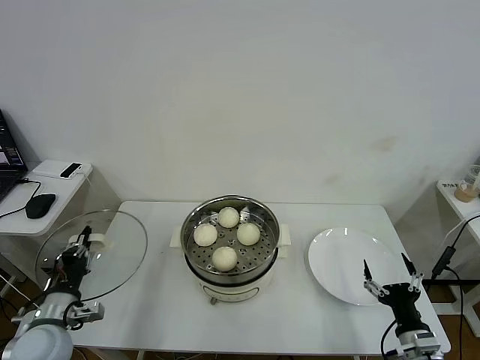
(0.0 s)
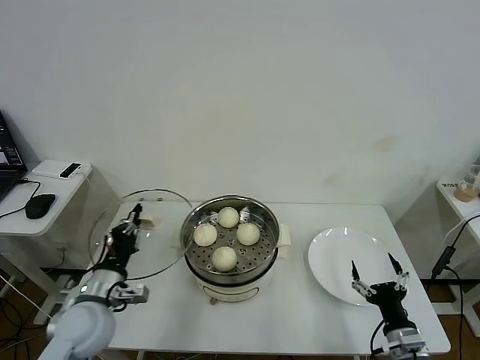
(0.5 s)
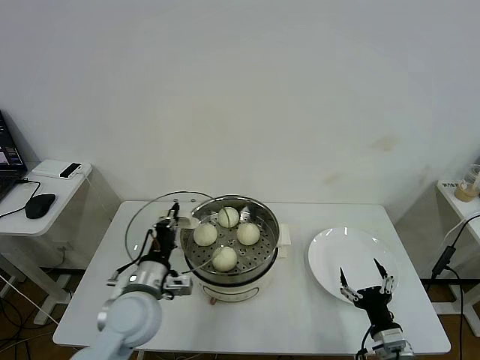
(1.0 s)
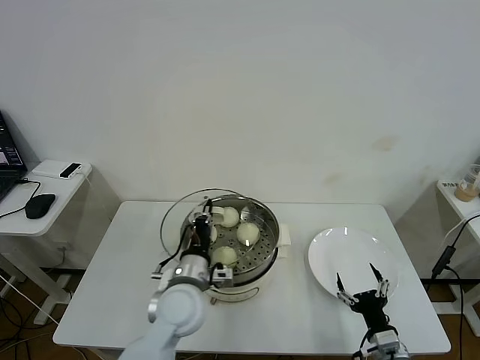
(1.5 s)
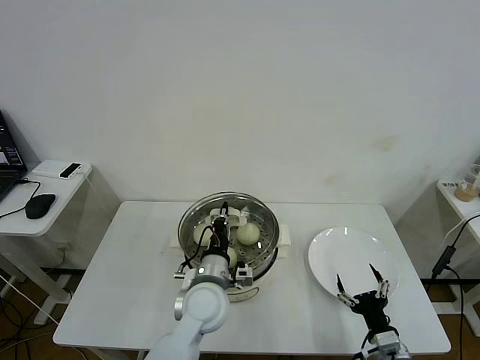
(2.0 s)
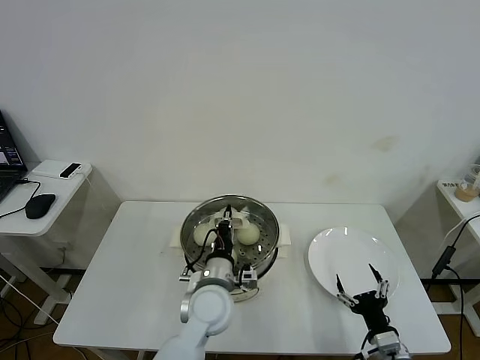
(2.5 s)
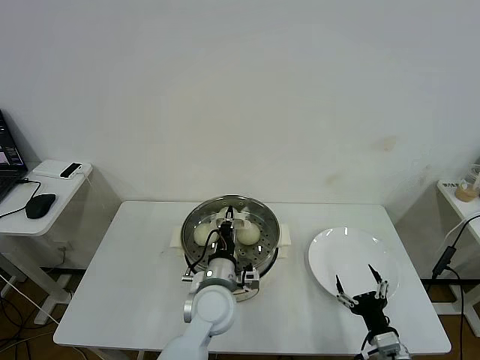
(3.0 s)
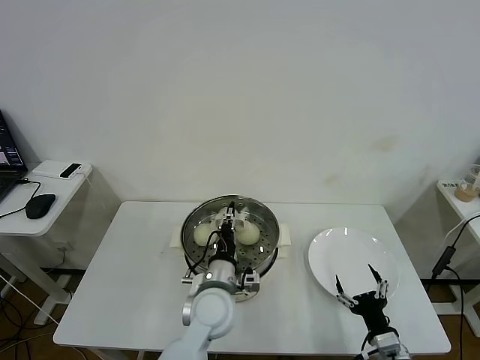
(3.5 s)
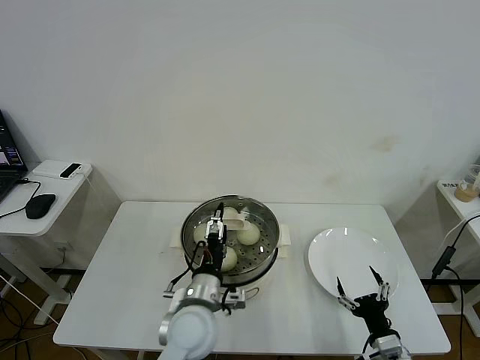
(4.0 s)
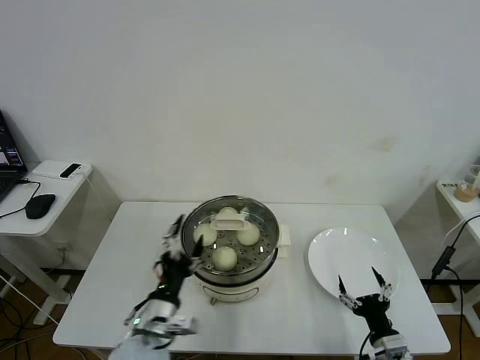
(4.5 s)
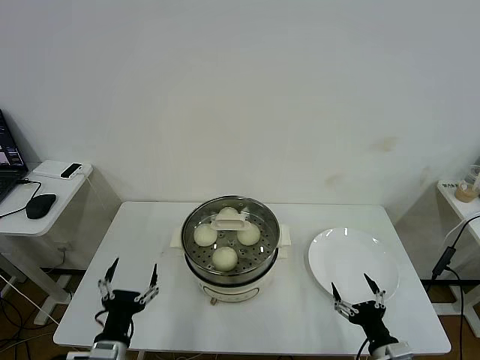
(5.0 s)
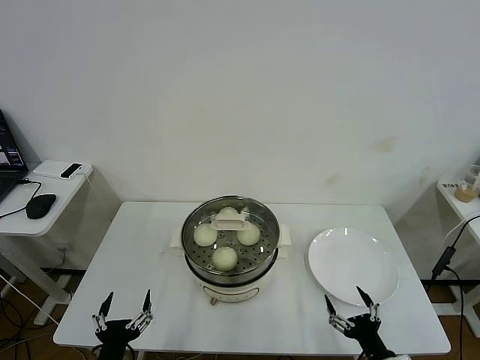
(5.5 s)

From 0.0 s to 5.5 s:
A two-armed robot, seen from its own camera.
Task of the whole recording: take steamed baozi put them in steamer then cover it.
Step, from 0.0 s to 3.5 s: Place the pot lid on the steamer with left gripper.
From 0.0 s to 2.0 s: The right gripper ends up about 5 cm from where it was, while the left gripper heads to the right, covering about 30 cm.
From 2.0 s to 3.5 s: The grippers move only a little.
From 3.5 s to 5.5 s: The left gripper goes about 30 cm to the left and backward, and opens up.
